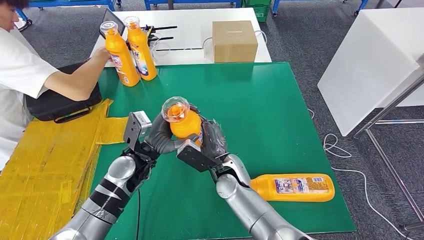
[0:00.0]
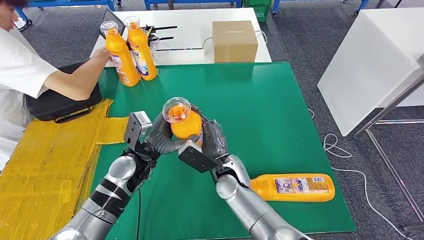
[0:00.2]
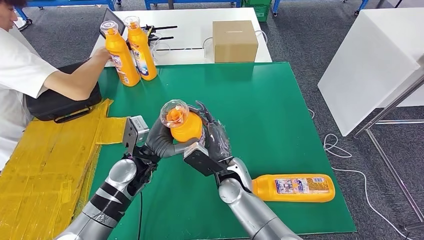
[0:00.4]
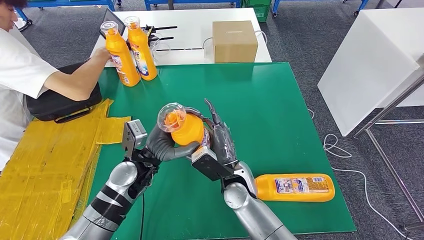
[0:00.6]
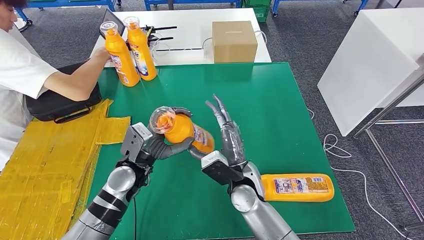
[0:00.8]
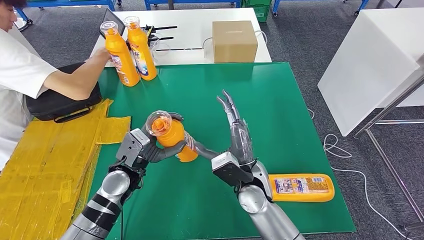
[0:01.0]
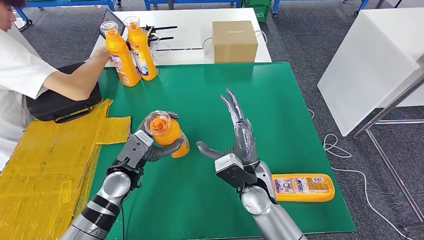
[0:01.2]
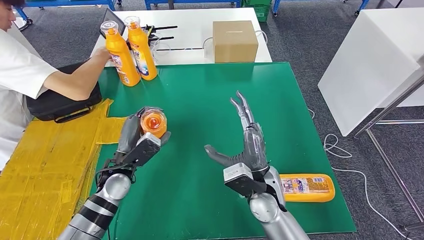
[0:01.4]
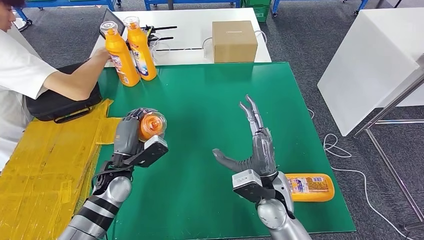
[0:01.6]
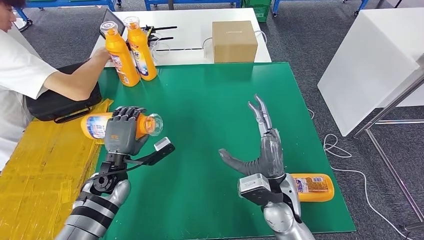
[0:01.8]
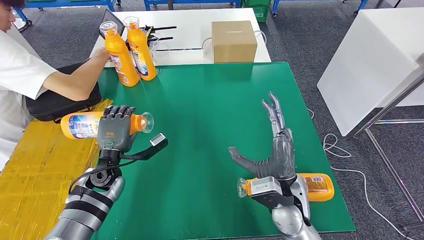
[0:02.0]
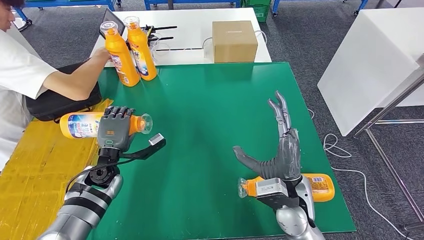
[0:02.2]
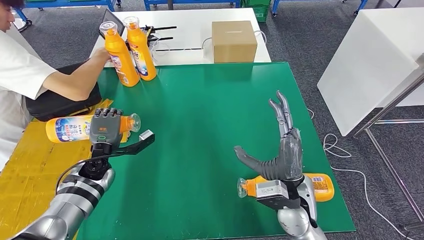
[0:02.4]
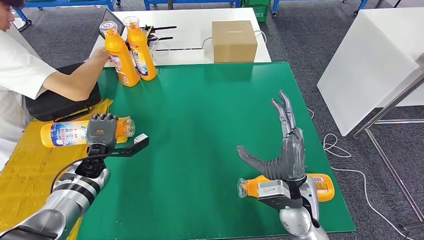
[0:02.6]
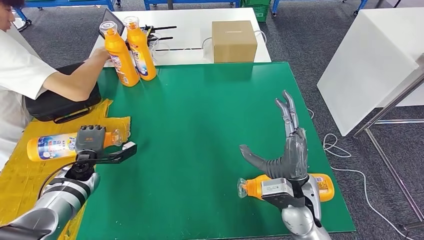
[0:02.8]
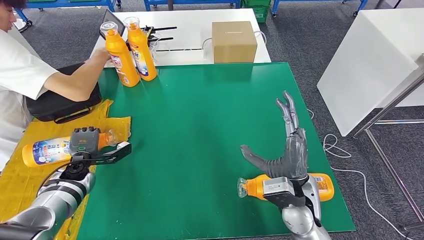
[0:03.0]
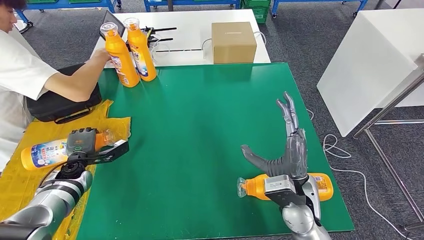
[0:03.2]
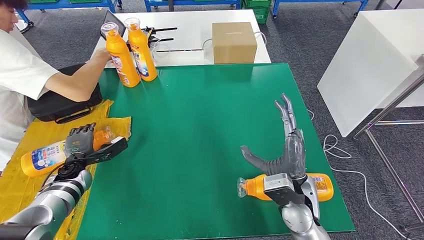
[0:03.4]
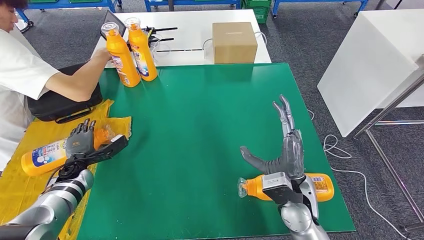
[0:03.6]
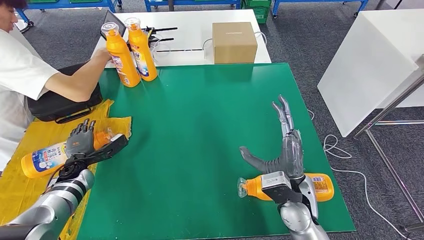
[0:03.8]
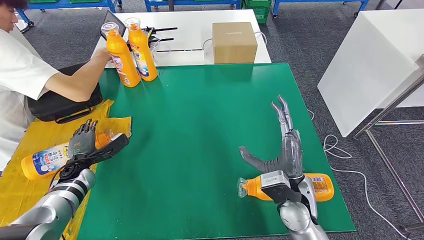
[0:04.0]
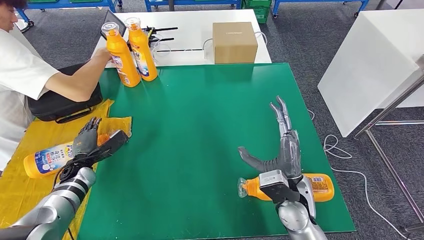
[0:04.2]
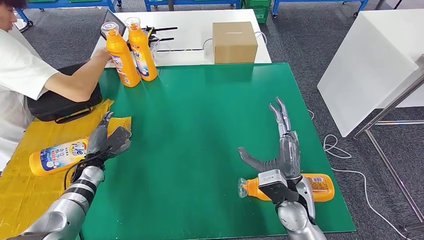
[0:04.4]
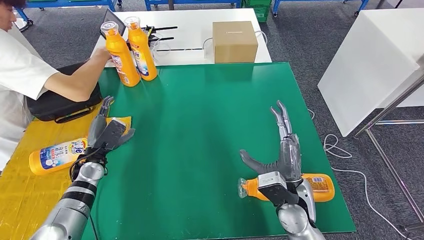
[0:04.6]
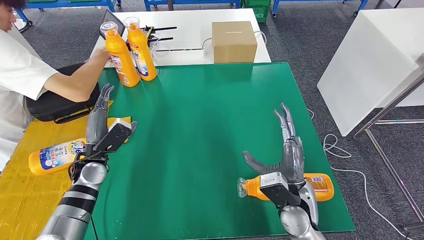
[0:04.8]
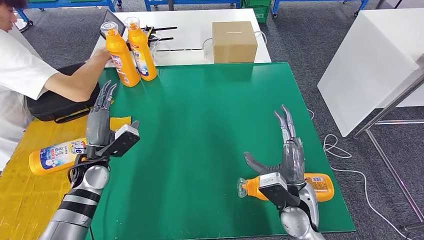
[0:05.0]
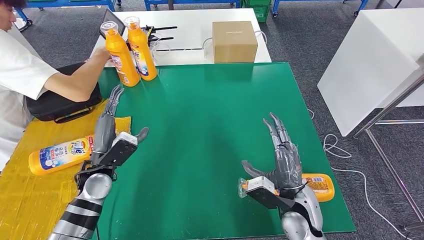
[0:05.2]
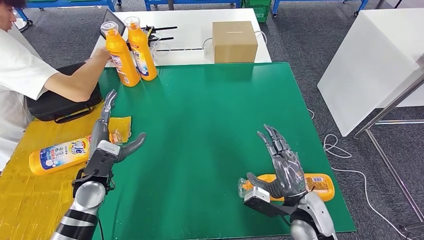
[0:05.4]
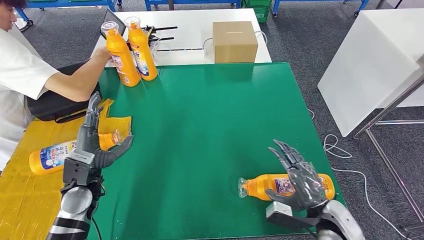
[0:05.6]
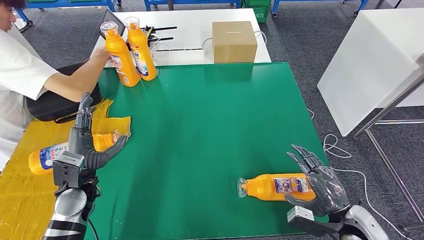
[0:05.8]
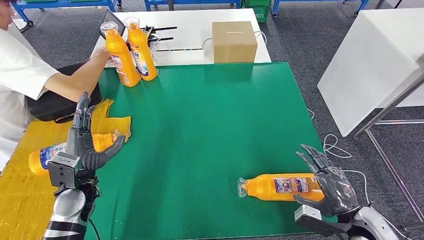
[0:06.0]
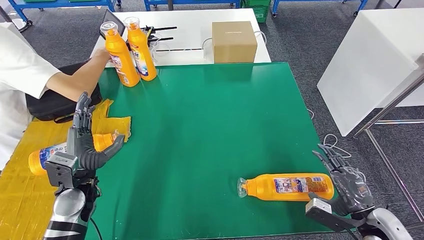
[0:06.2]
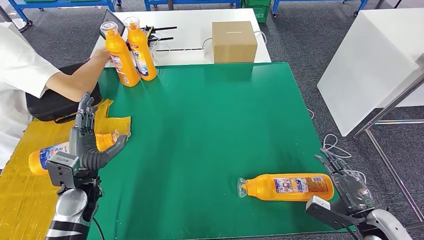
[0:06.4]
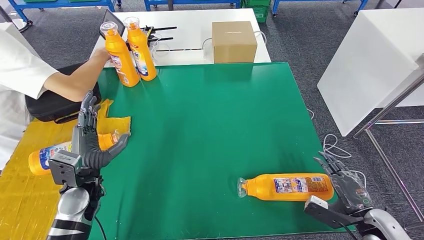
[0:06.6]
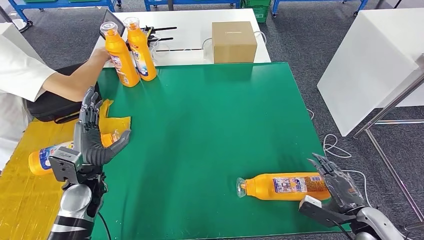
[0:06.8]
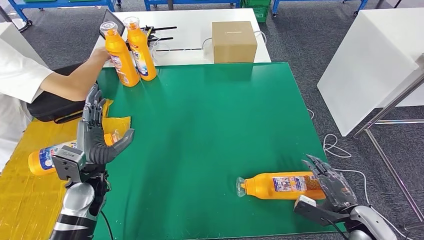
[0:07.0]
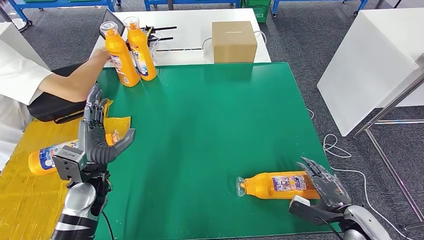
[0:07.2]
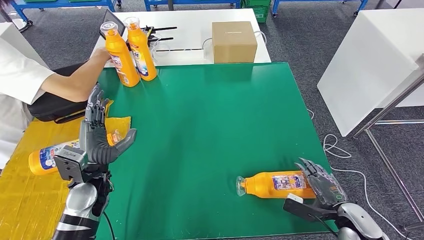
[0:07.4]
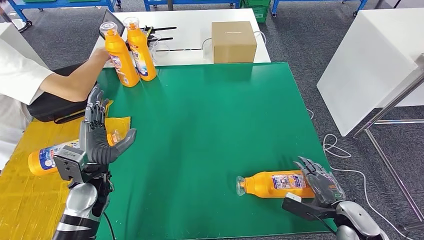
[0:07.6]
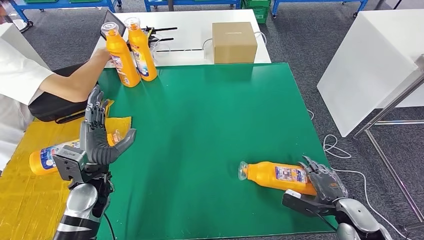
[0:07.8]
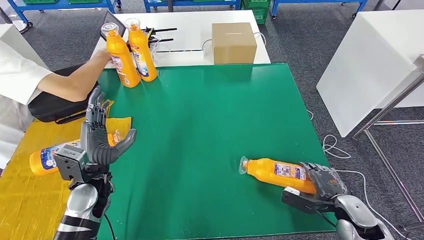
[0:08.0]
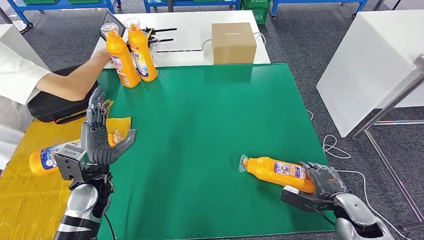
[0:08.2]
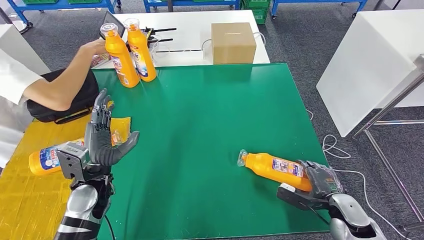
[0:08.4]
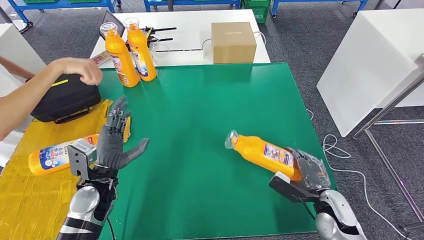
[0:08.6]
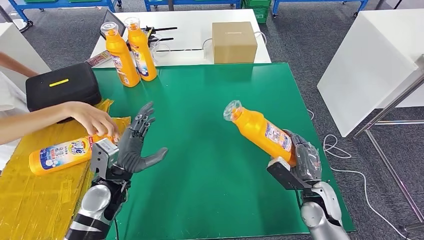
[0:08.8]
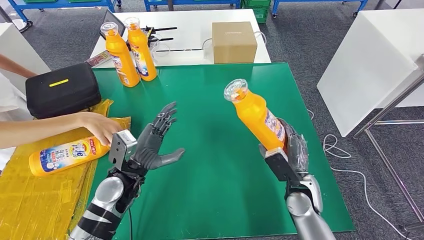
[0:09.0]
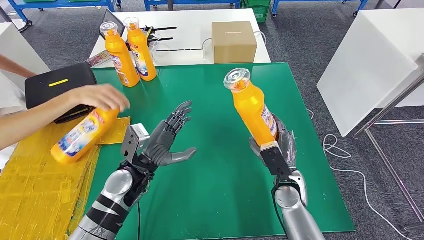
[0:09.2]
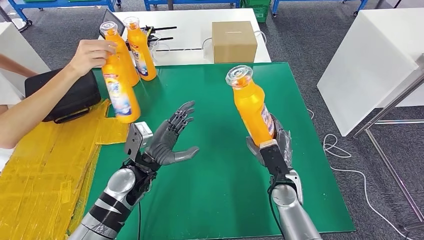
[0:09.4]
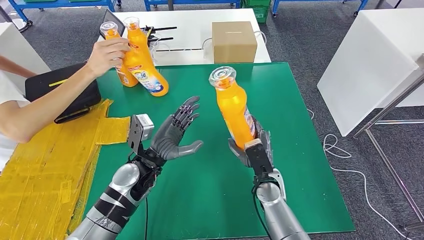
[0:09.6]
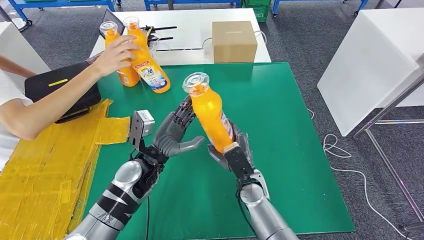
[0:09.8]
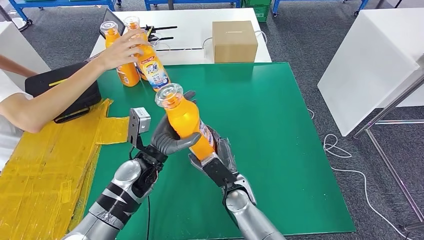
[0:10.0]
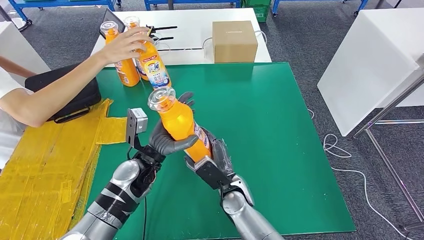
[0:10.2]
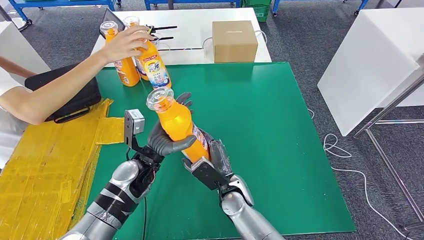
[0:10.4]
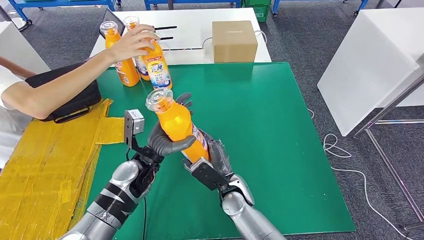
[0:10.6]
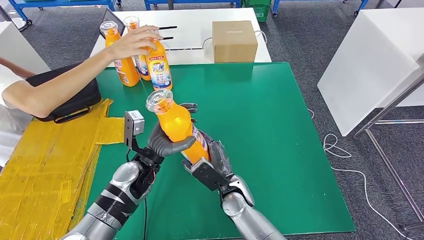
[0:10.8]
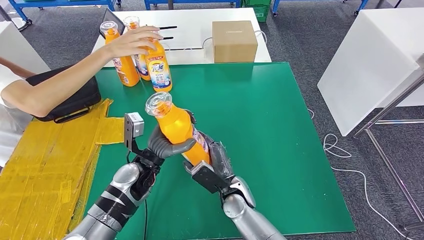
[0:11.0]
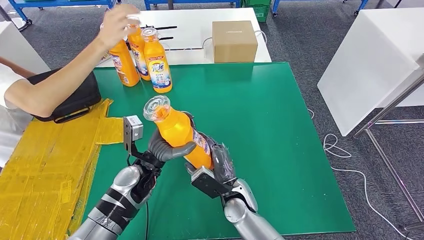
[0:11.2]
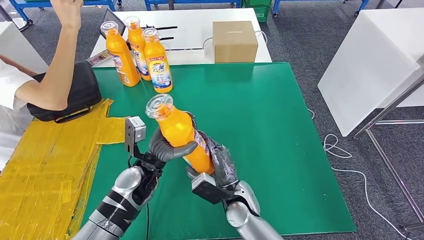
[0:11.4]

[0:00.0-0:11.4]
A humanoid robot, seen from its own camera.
Step, 0:00.0 to 0:02.0: Flip the fast-moving consumer goods bottle to the front side.
Step, 0:02.2 to 0:09.2: Pick up the fast-moving consumer goods bottle from the table.
0:00.0 to 0:01.4: The left hand travels to the left by roughly 5 cm, while the right hand moves to the right, roughly 10 cm.
0:01.4 to 0:02.8: The left hand heads to the left and downward, covering about 15 cm. Meanwhile the right hand goes some 5 cm to the right.
0:04.2 to 0:05.6: The left hand is displaced to the right, upward and backward by about 15 cm; the right hand heads to the right and backward, covering approximately 10 cm.
0:05.6 to 0:07.2: The right hand travels to the right by approximately 10 cm.
0:07.2 to 0:08.6: The right hand heads to the left, covering roughly 5 cm.
0:10.0 to 0:11.4: There are only small adjustments of the hands.

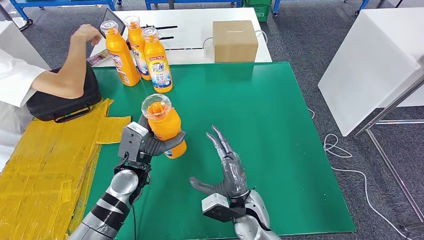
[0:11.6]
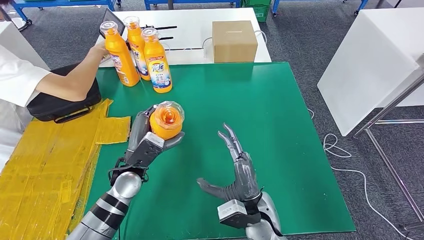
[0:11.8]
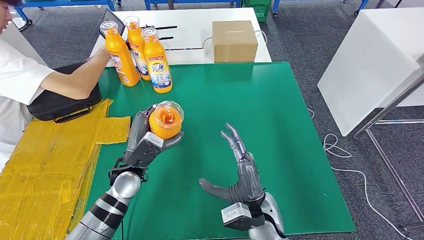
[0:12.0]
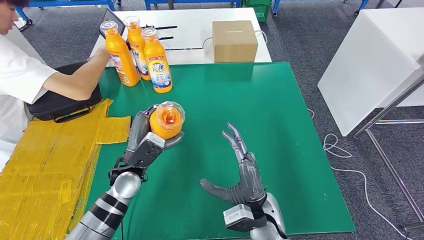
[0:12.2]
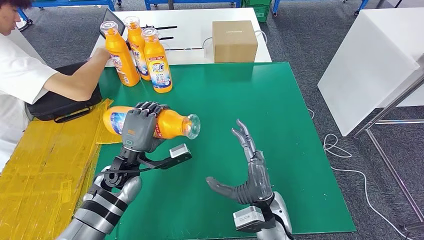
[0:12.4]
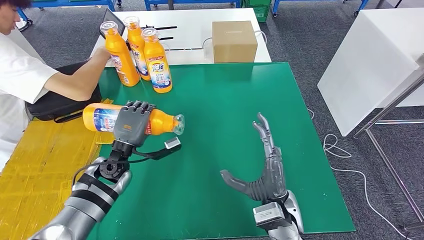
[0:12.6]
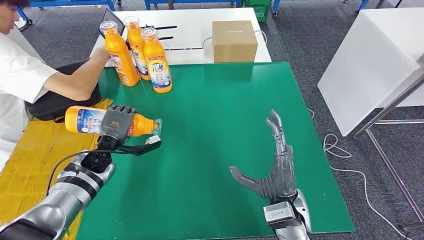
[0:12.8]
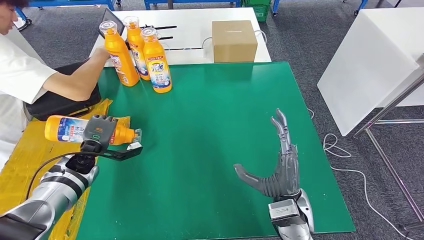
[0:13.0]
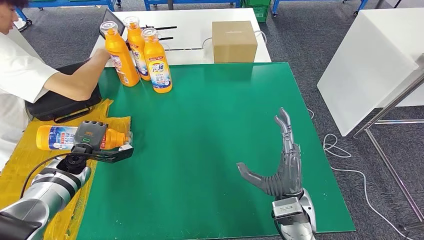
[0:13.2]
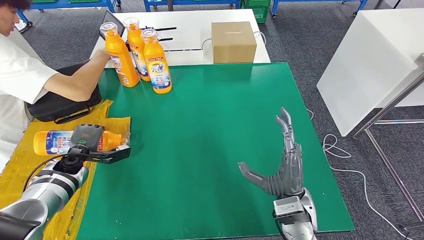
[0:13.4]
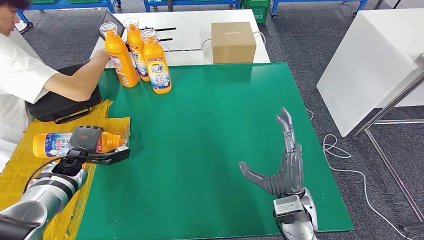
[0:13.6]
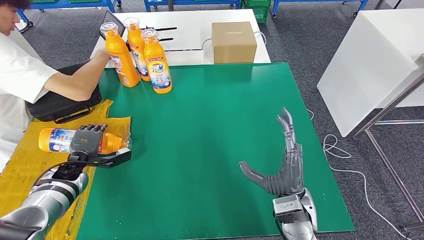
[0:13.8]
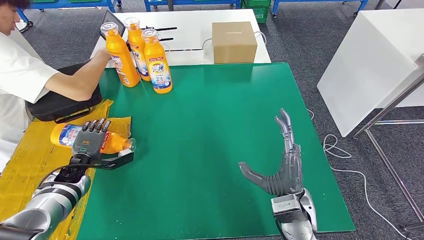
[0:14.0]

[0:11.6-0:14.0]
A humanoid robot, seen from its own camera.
Step, 0:11.6 to 0:14.0: Flip the fast-moving consumer goods bottle to the front side.
0:12.8 to 0:14.0: The left hand moves to the left and downward, roughly 10 cm.
